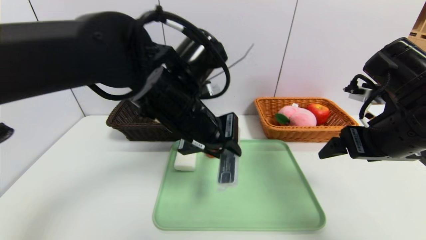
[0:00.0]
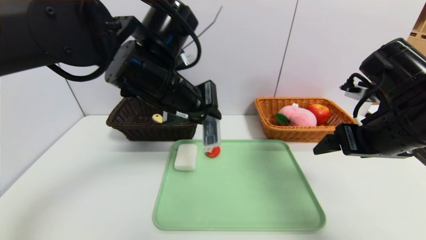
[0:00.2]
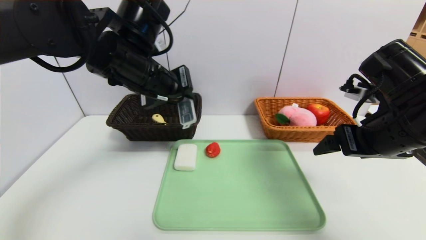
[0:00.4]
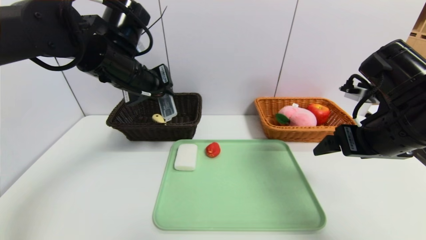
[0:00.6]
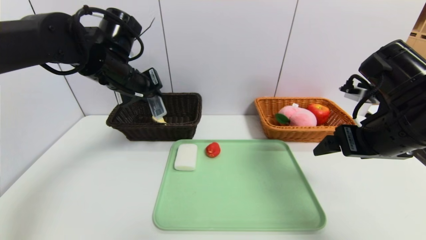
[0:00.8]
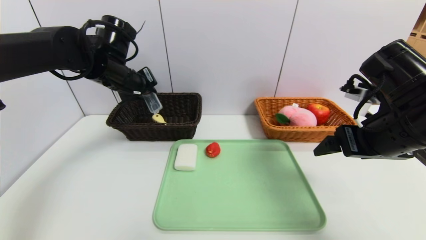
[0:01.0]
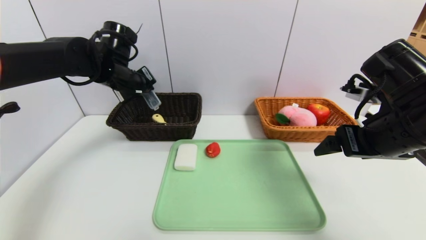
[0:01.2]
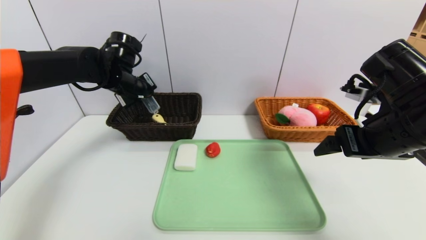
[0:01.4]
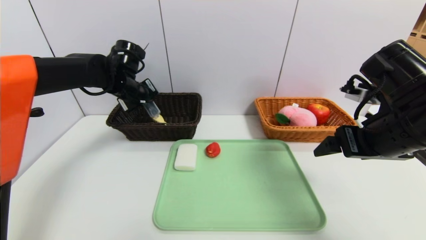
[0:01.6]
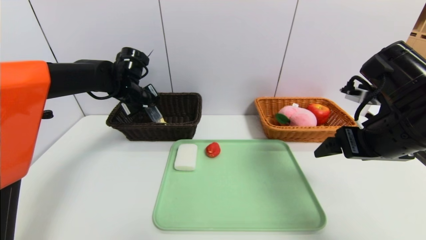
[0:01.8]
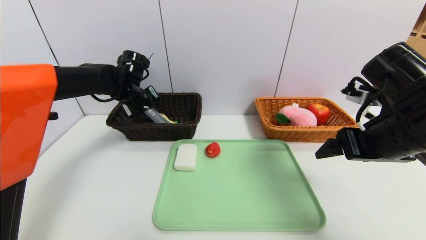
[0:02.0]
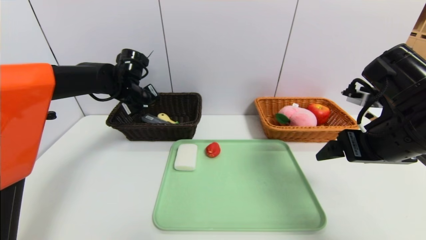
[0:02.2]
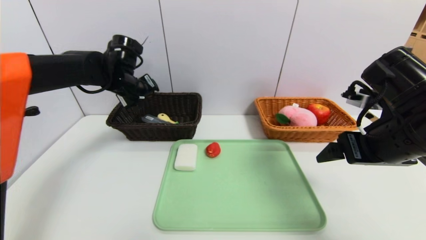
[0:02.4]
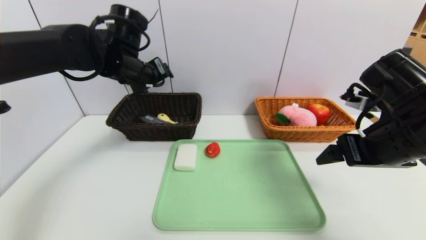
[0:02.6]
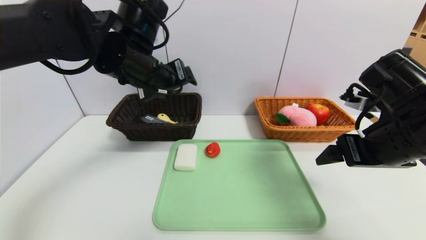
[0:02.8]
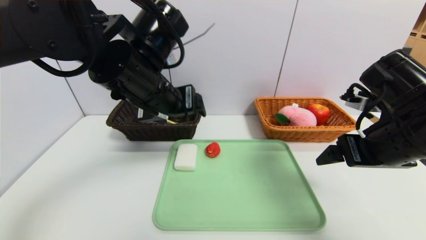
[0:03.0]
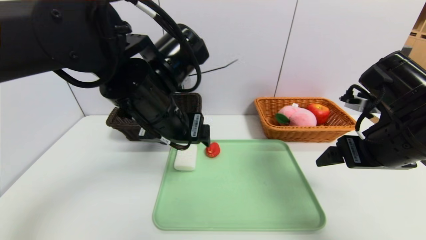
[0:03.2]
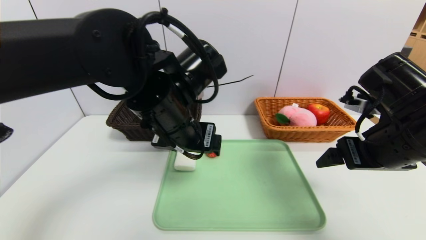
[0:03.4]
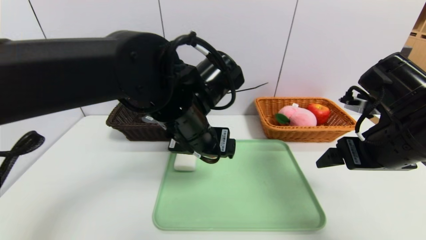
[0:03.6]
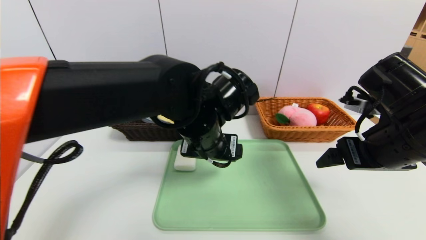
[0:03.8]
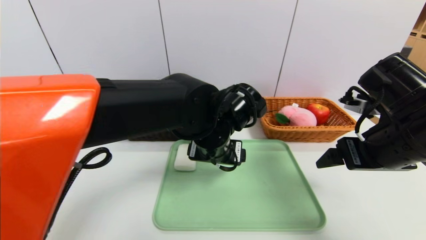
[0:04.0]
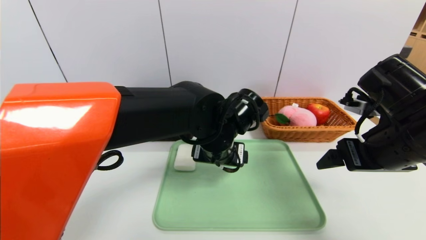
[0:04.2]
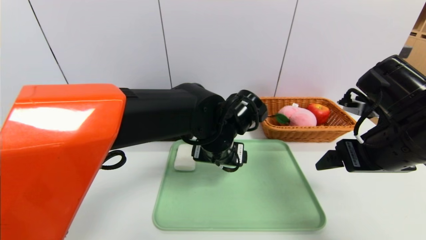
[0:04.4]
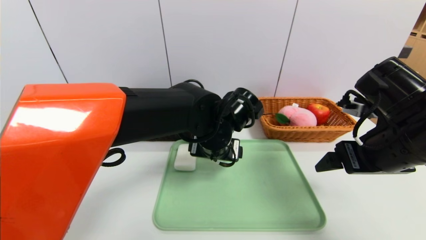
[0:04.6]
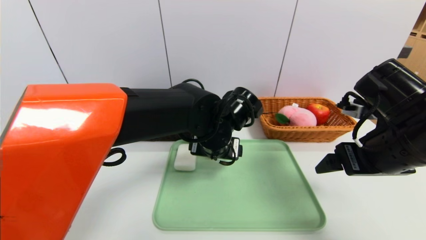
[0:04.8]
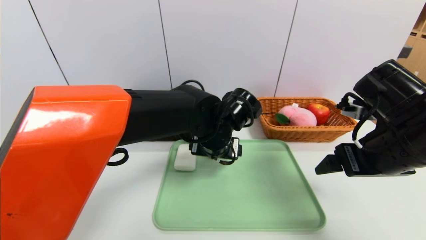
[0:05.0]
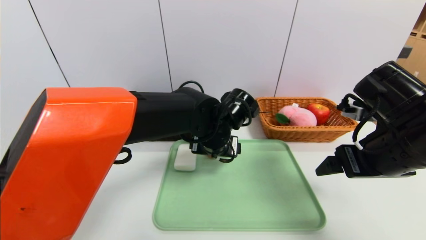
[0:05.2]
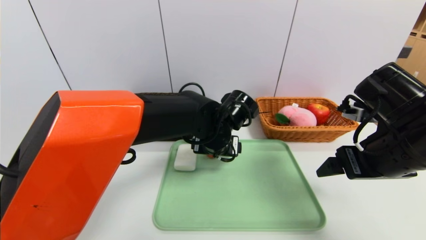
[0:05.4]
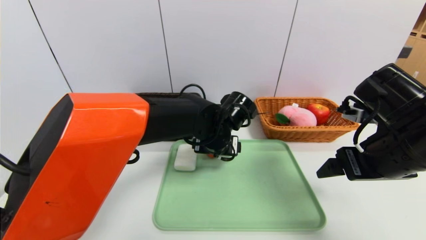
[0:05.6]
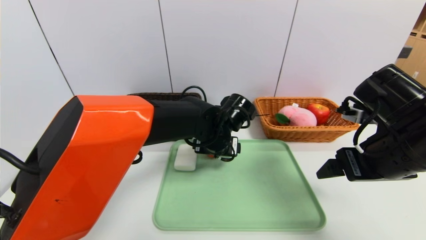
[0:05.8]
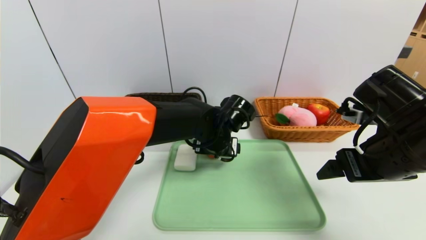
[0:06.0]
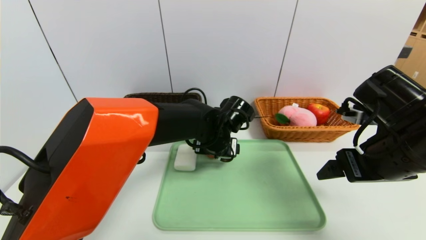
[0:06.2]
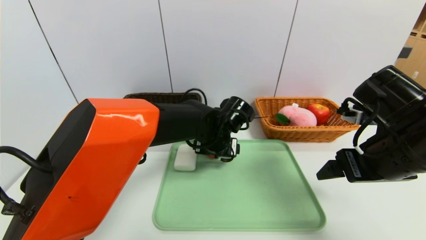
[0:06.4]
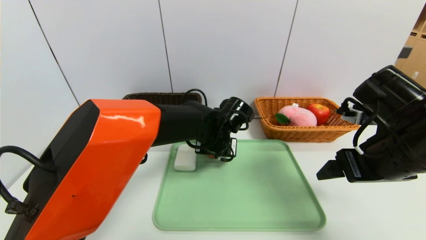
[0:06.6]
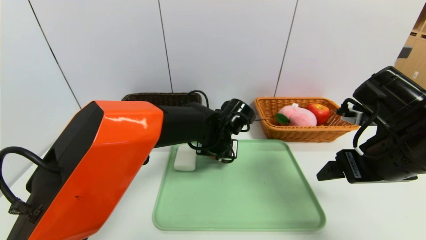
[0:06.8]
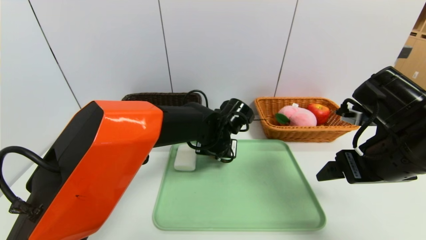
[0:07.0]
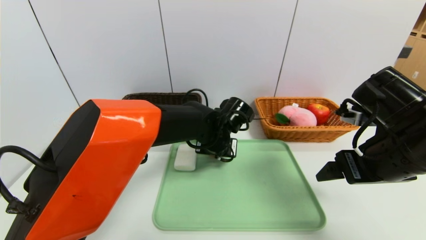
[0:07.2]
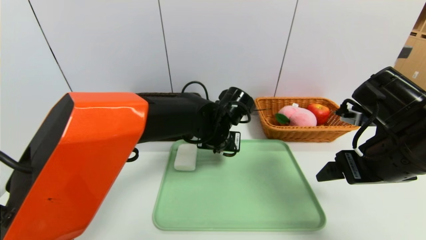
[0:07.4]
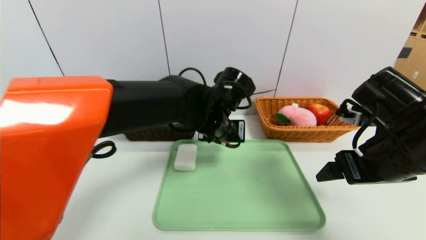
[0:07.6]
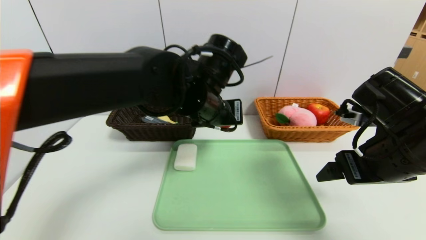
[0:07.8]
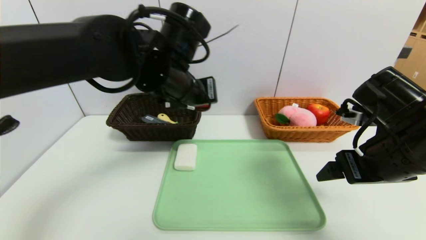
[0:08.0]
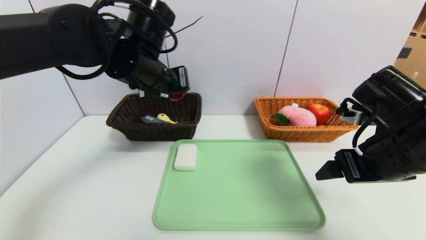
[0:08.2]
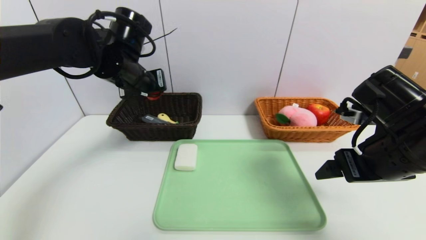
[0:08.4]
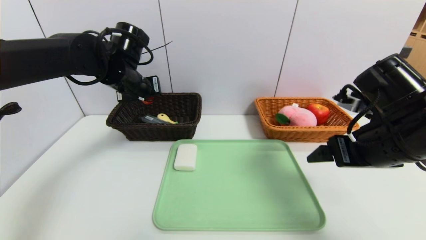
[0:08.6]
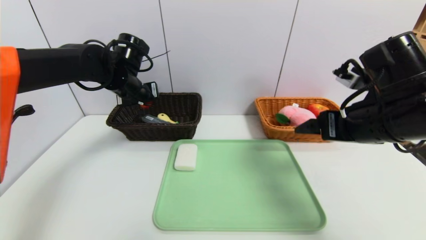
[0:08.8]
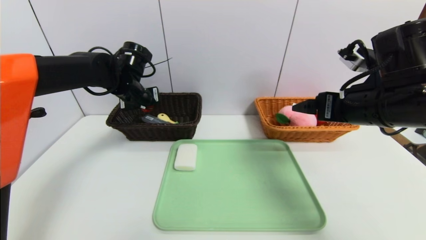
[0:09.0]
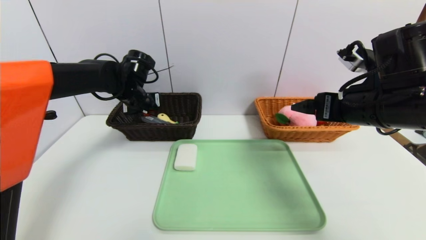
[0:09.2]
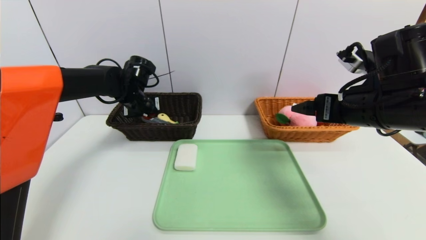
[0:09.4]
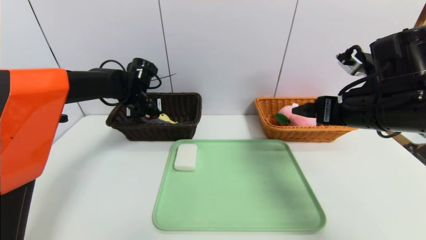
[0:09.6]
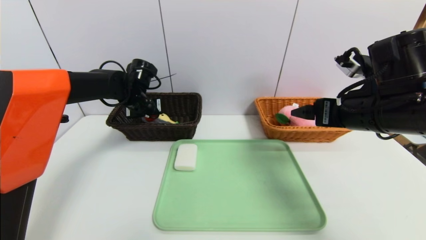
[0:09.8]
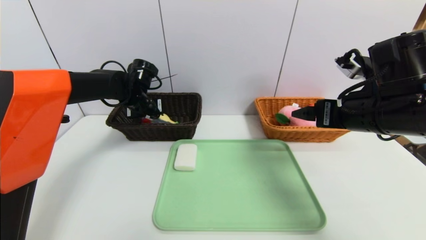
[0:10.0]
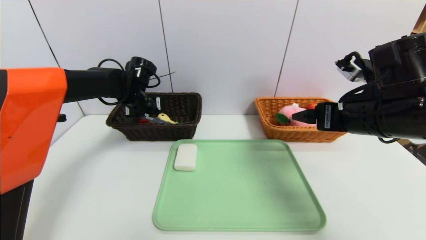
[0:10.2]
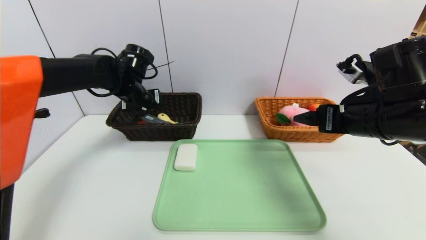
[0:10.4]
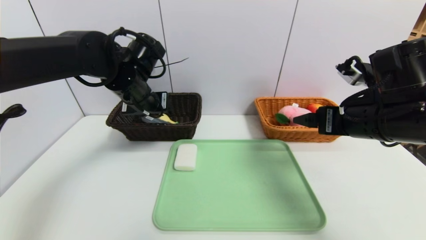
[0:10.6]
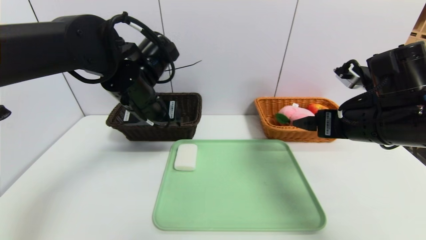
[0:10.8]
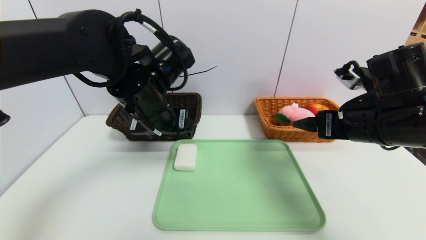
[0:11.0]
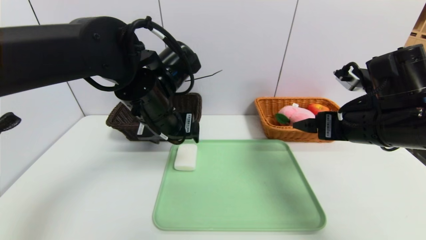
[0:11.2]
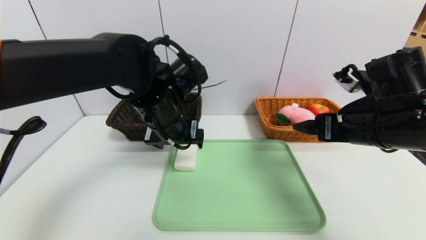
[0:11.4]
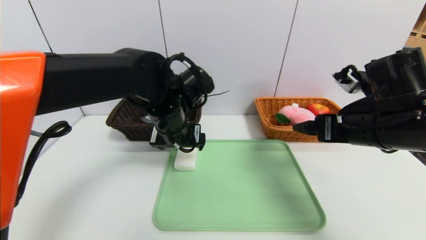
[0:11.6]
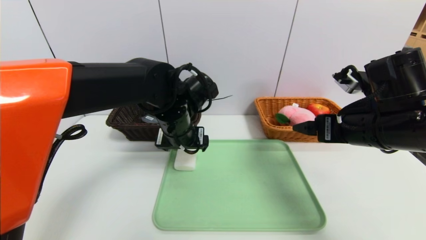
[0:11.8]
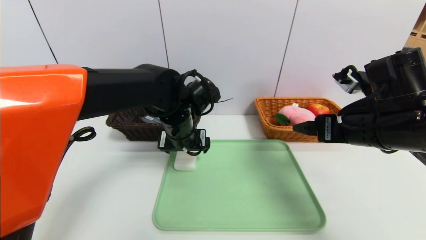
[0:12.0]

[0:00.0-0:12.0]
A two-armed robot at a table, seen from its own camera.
Task of the whole recording: place the food in the right basket with the right gripper, and place the non food items in the left basket with the left gripper.
Step, 0:00.0 to 0:02.2: Grasp the compass and put it in the left basket.
Step, 0:02.4 to 0:11.0: Grasp the red duck and put it in the left basket.
0:00.0 to 0:01.6: The left gripper goes approximately 25 cm forward and to the left.
0:01.6 to 0:03.0: The left gripper shifts approximately 20 cm backward and to the right, and opens.
0:03.0 to 0:04.4: The left gripper goes some 15 cm downward and to the right.
0:04.4 to 0:06.0: The left gripper changes place by roughly 5 cm.
0:06.0 to 0:07.6: The left gripper is displaced upward by approximately 5 cm, and closes.
0:07.6 to 0:09.0: The right gripper ends up roughly 5 cm from where it was, while the left gripper heads to the left and forward, covering some 25 cm.
0:09.0 to 0:10.4: The left gripper opens.
0:10.4 to 0:12.0: The left gripper is displaced to the right and backward by about 15 cm.

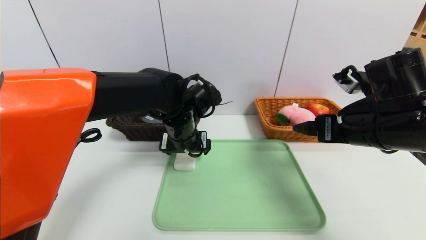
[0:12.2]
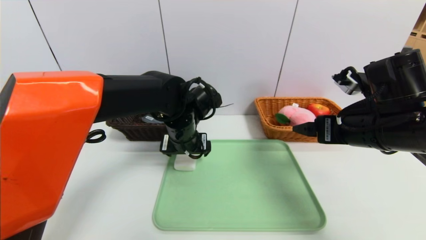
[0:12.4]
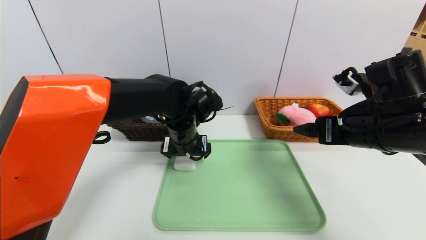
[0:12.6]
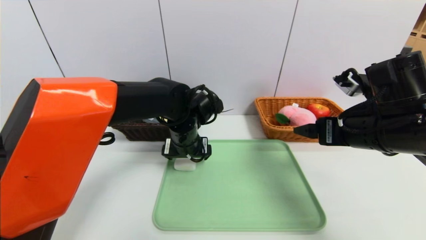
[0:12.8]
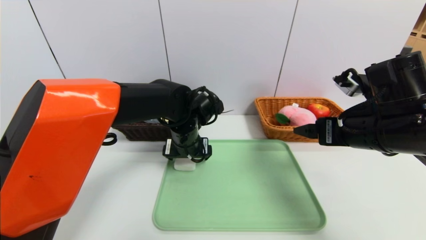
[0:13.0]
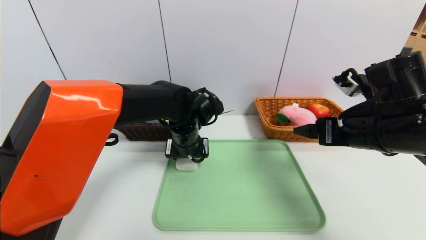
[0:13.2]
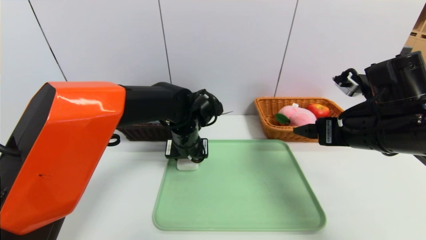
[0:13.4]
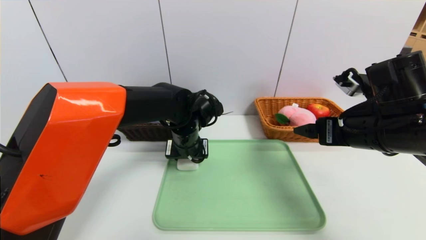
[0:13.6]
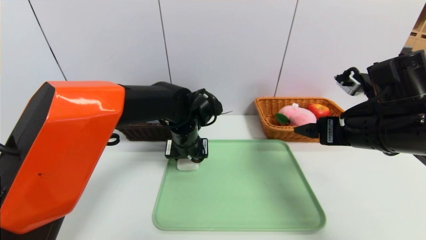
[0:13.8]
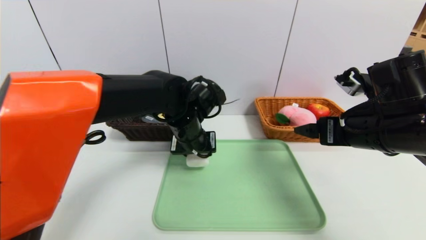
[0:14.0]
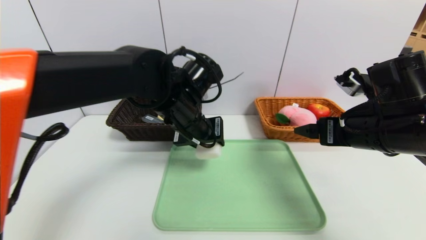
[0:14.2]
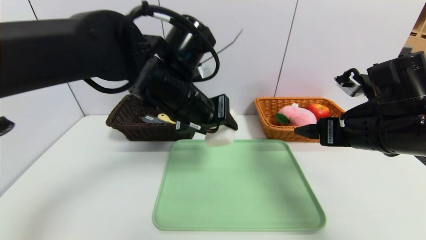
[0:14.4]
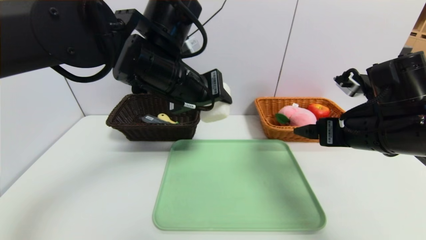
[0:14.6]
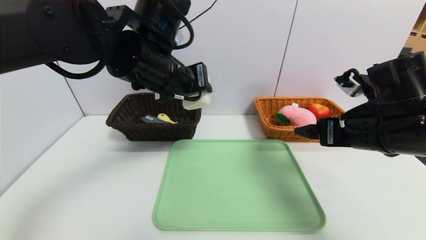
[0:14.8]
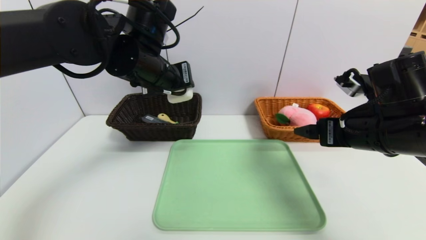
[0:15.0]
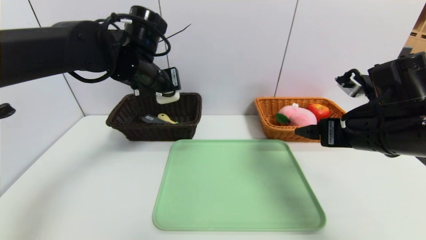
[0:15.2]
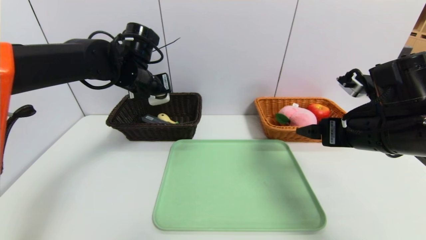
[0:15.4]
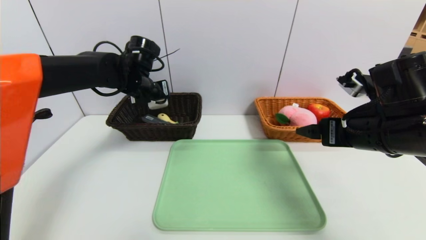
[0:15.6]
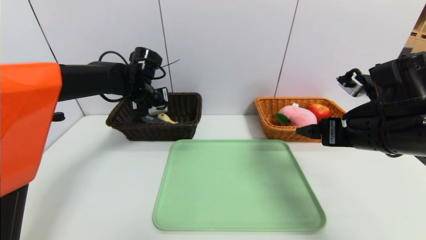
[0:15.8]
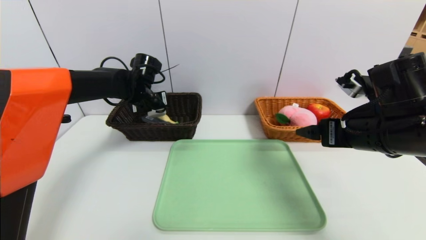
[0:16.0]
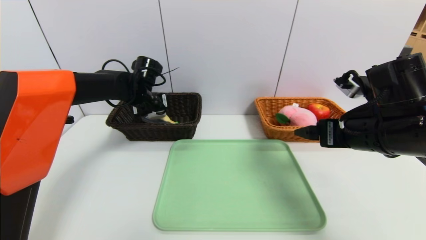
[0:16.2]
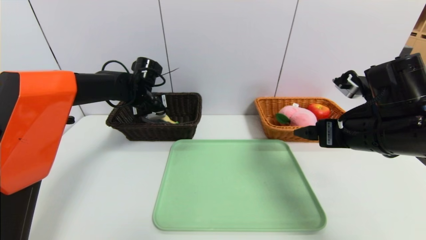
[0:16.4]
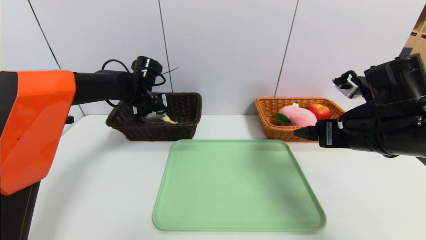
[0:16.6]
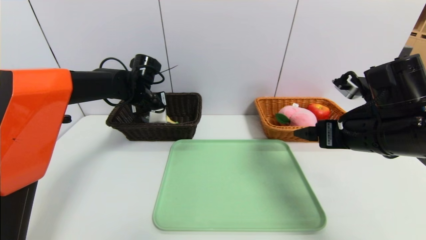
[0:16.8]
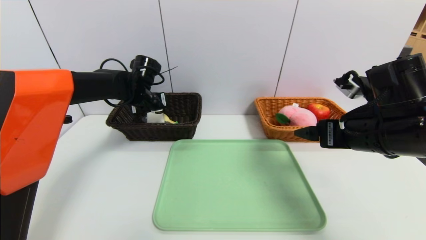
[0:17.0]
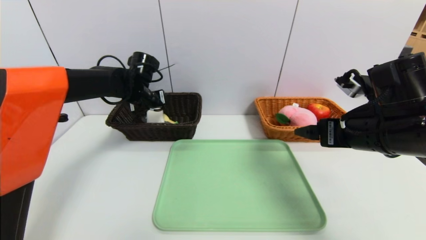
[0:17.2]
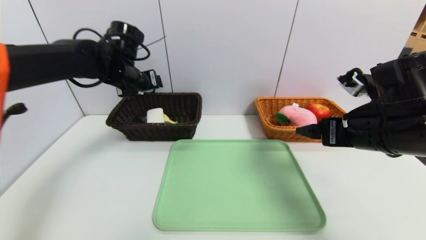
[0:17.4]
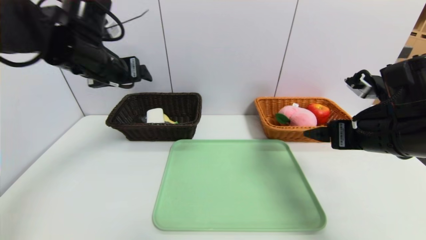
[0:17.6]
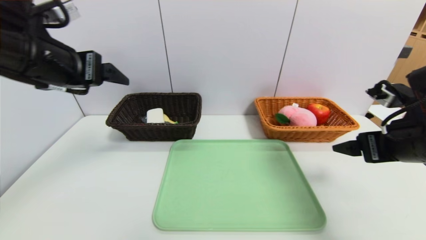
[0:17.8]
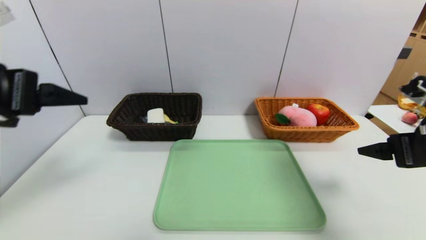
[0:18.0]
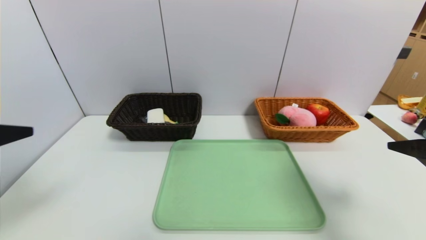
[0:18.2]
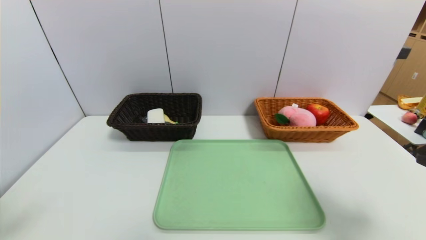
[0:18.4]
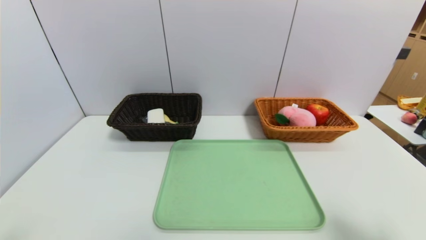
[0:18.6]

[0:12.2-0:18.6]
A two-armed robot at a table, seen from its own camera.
Task of the whole recording: place the food in the right basket with the right gripper, and place the non food items in the left basket with the left gripper.
Step, 0:12.2 to 0:17.6: Grasp the white eraser and put it in the left basket.
0:12.2 to 0:13.8: The left gripper closes.
0:13.8 to 0:15.4: The left gripper moves to the left, upward and forward, roughly 15 cm.
0:15.4 to 0:17.0: The left gripper shifts about 10 cm downward and forward, and opens its fingers.
0:17.0 to 0:18.6: The right gripper travels backward and to the right by some 20 cm; the left gripper is displaced backward by about 50 cm.
